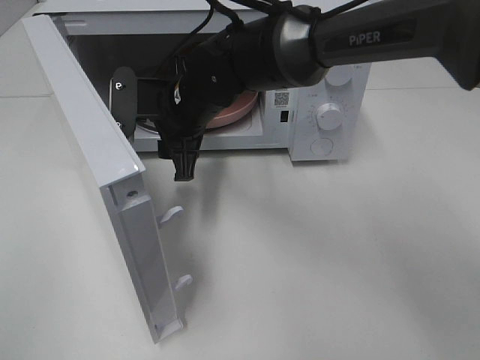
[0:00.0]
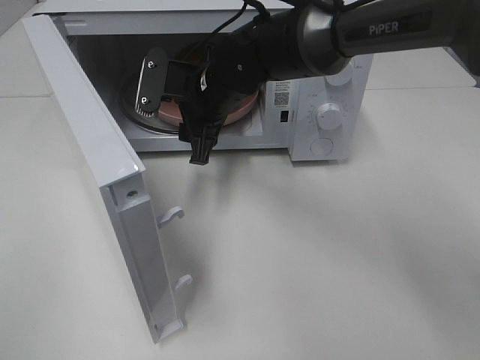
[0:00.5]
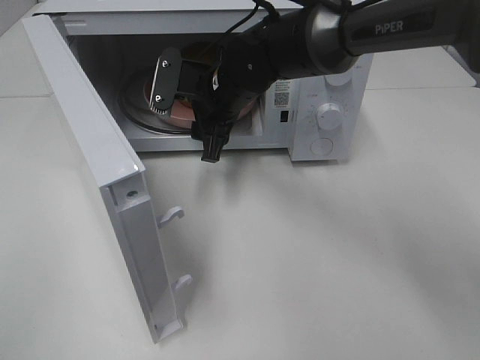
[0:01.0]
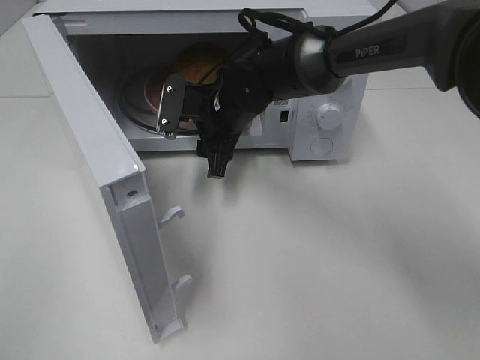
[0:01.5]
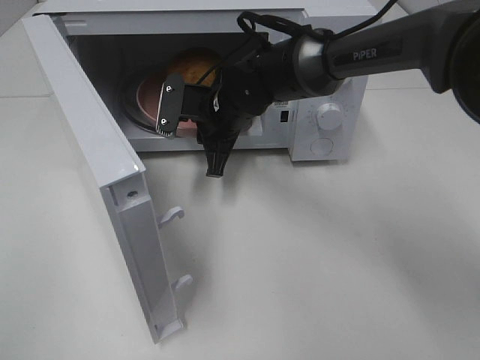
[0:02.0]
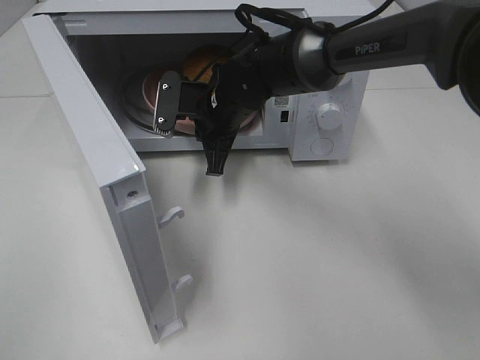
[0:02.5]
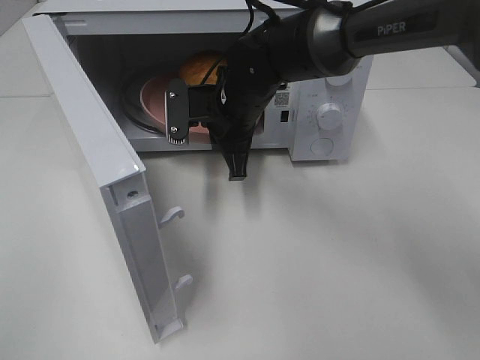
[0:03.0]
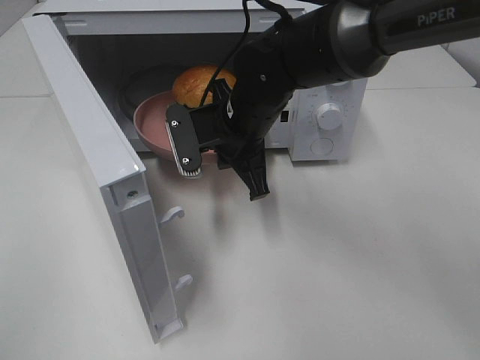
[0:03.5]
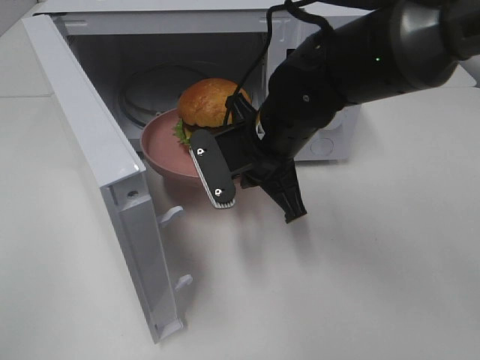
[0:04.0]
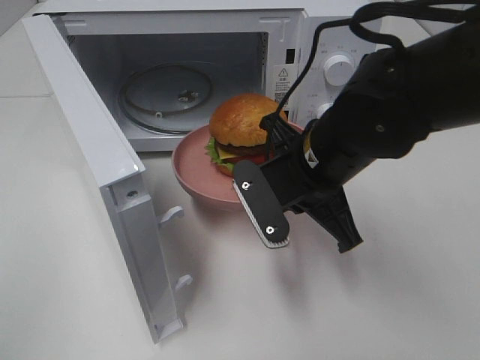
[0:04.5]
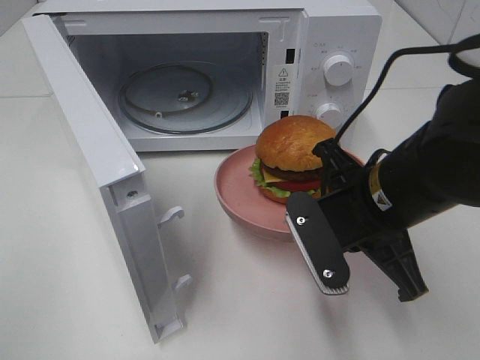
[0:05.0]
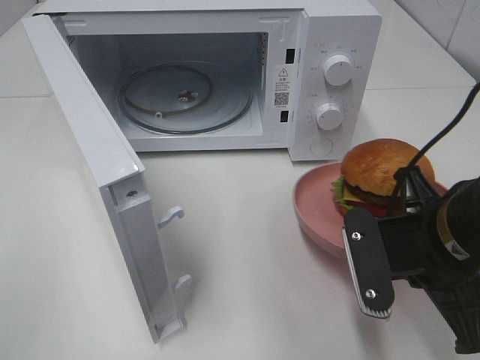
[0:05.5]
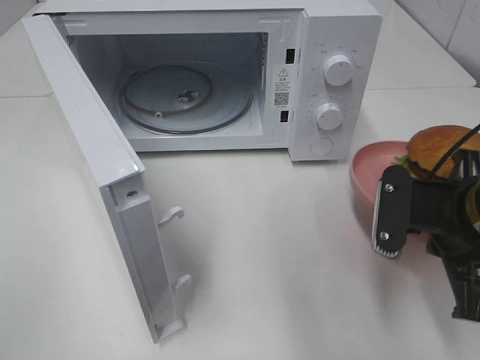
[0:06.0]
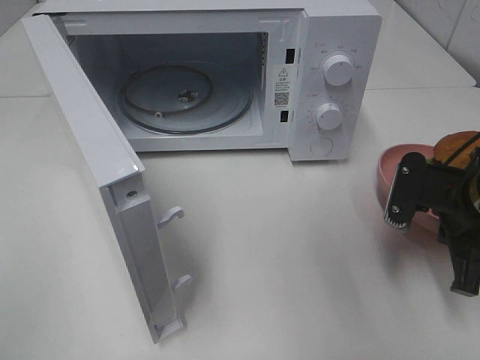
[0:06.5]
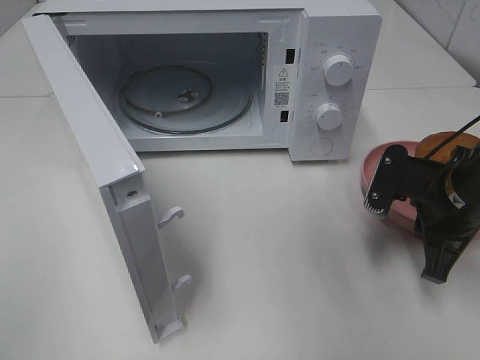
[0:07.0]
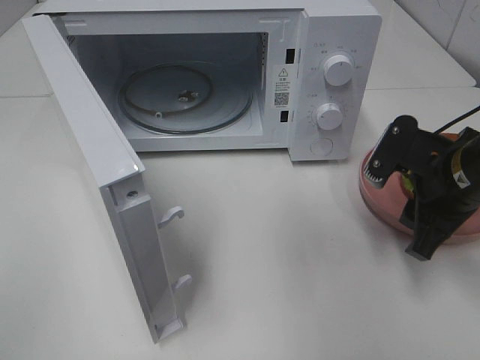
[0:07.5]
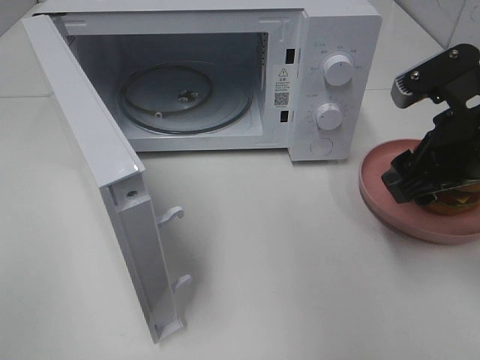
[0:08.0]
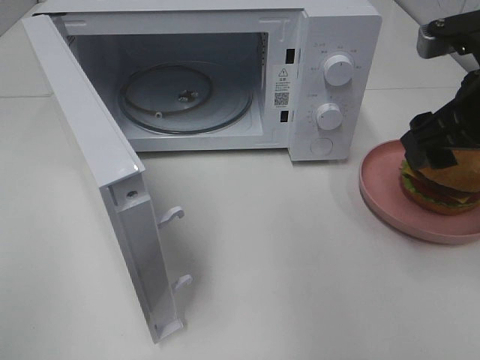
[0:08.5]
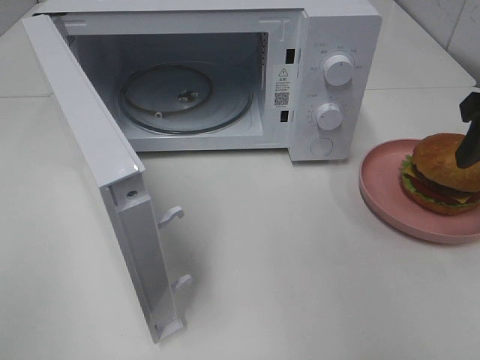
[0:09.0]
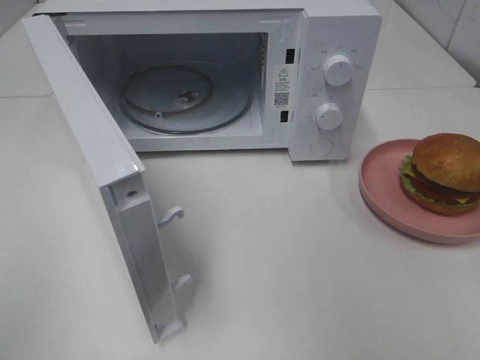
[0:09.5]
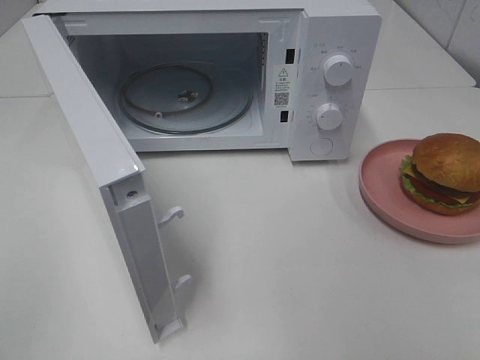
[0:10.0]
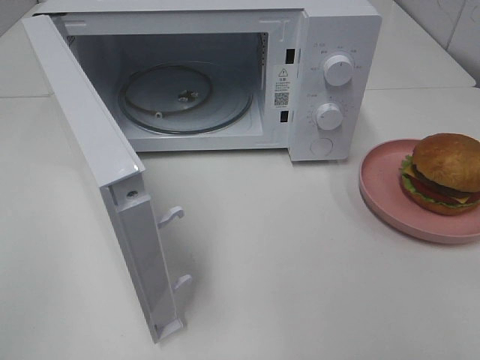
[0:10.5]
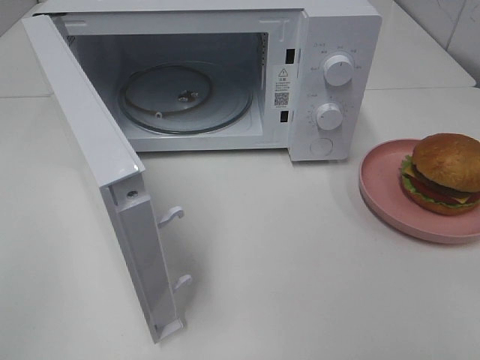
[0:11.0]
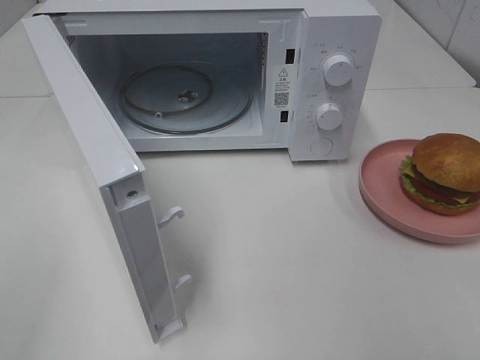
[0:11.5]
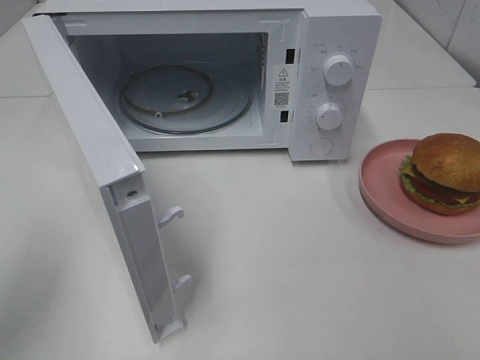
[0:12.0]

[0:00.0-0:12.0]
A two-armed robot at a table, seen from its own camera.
Task of the whole recording: Heat the burger.
Step, 0:02.0 to 0:07.0: Right hand: place the plate on the table.
0:00.0 to 0:02.0: The right gripper moves about 5 cm, and closes its fingers.
0:02.0 to 0:04.0: The right gripper moves backward and to the right, about 10 cm.
0:04.0 to 0:06.0: The right gripper travels to the right and backward by about 20 cm.
0:06.0 to 0:08.0: The right gripper goes some 5 cm upward, and opens.
0:08.0 to 0:10.0: The right gripper heads backward and upward, covering about 20 cm.
0:10.0 to 0:12.0: The left gripper is displaced forward by roughly 15 cm.

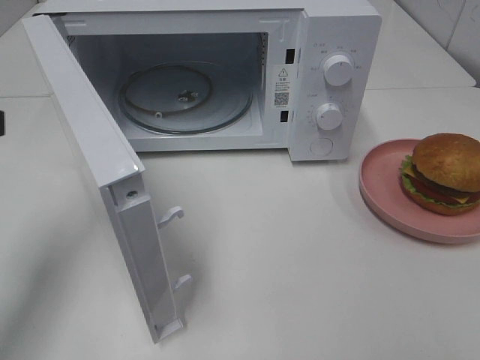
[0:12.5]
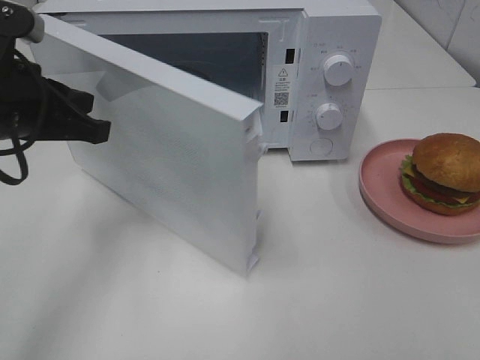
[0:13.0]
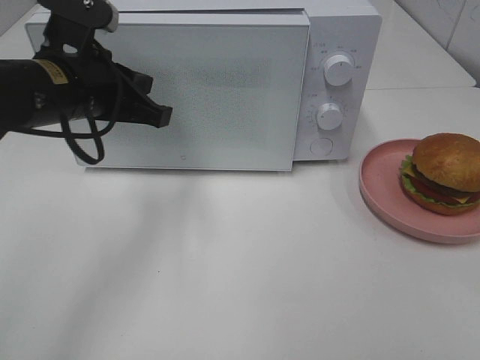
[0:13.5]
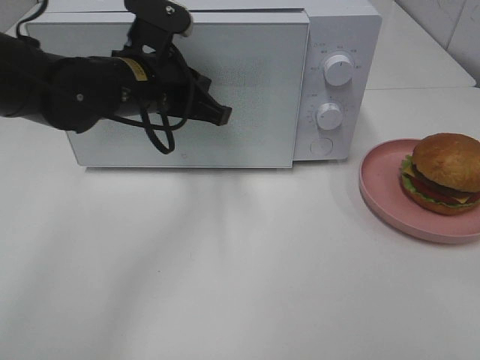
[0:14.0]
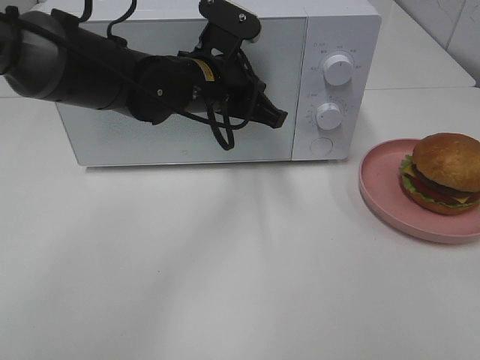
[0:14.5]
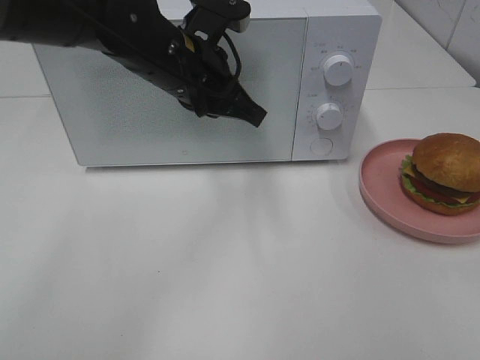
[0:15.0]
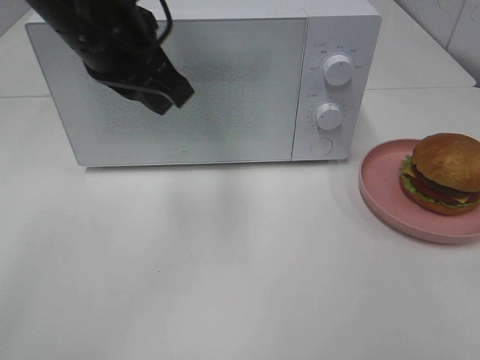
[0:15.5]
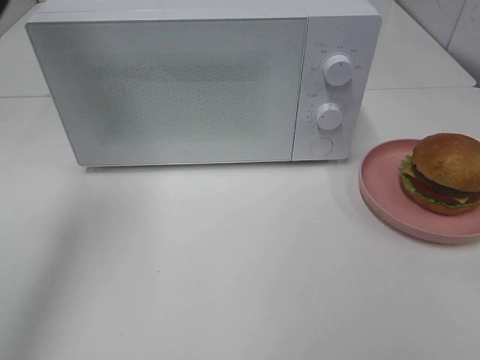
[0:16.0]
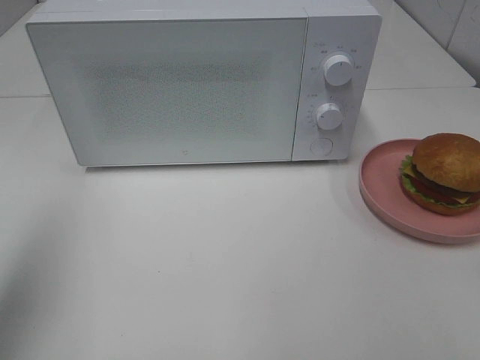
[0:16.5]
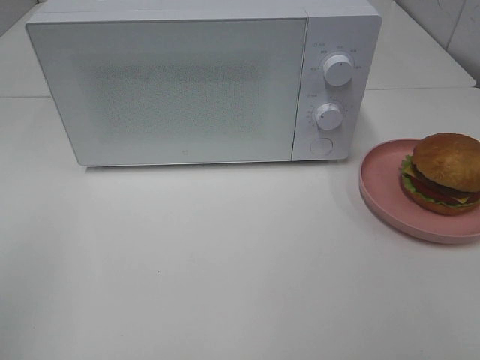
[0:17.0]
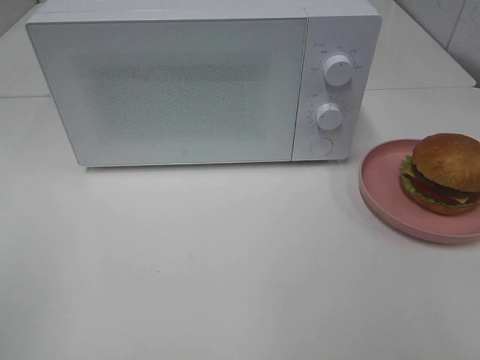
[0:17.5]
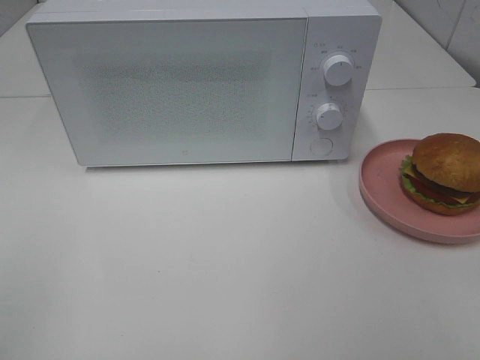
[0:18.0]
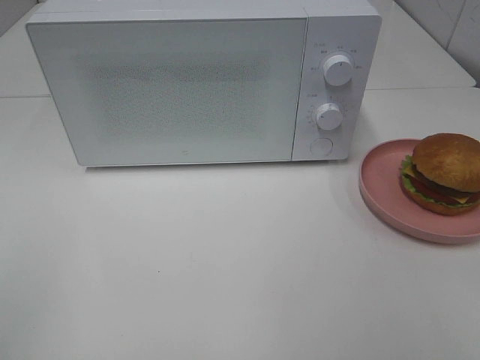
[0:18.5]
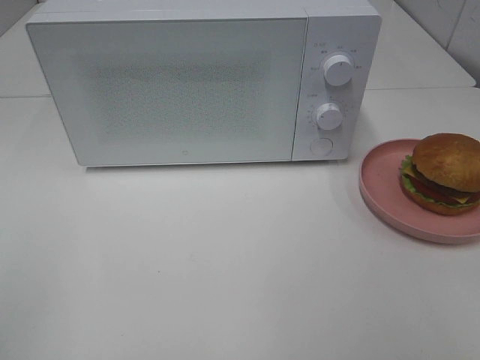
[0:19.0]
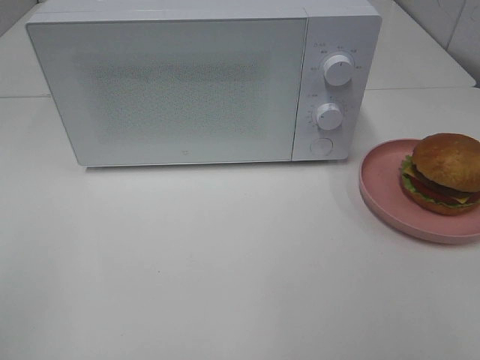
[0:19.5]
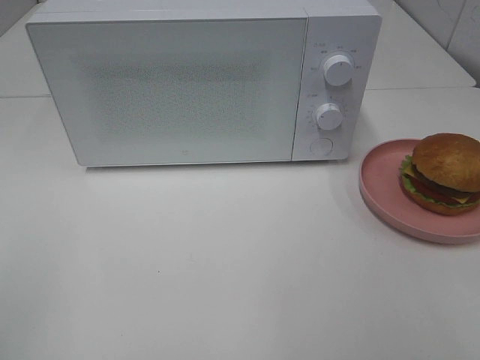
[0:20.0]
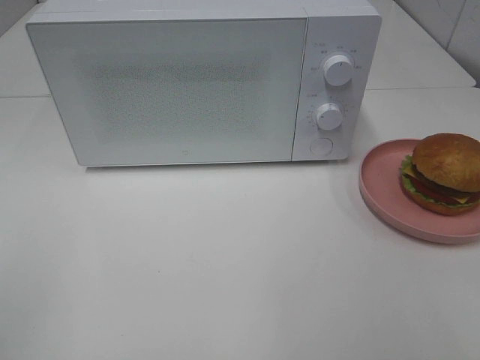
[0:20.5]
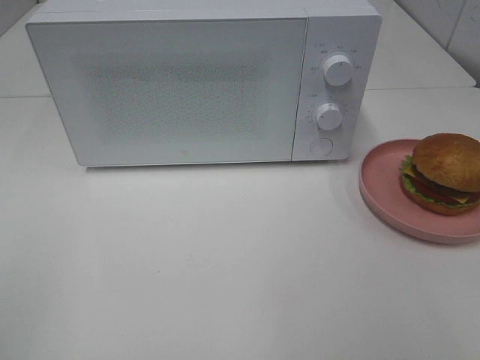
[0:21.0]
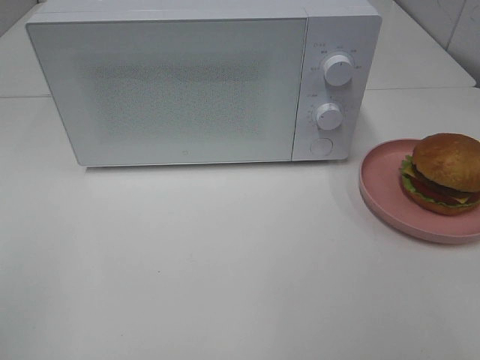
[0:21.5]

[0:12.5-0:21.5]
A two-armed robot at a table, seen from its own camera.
Task of the whole recording: Heat the burger.
Step, 0:12.5 to 0:14.5: Left hand: close the microwave door.
0:12.5 to 0:14.5: The left gripper is displaced to the right and forward by some 25 cm, and opens up.
0:14.5 to 0:17.0: The left gripper heads backward and to the left, covering roughly 40 cm.

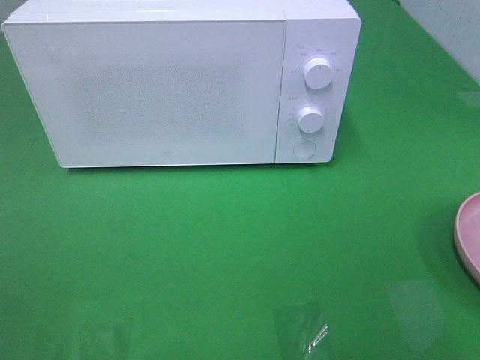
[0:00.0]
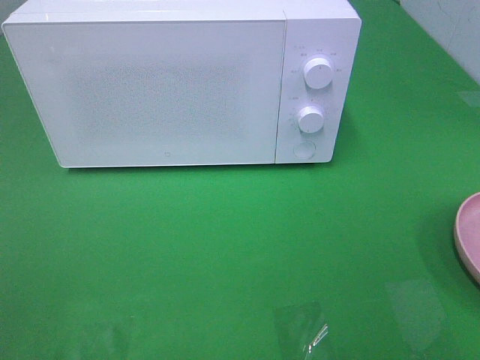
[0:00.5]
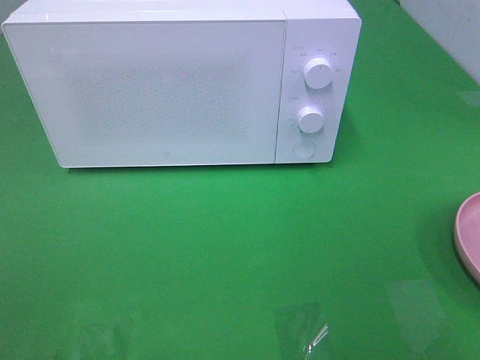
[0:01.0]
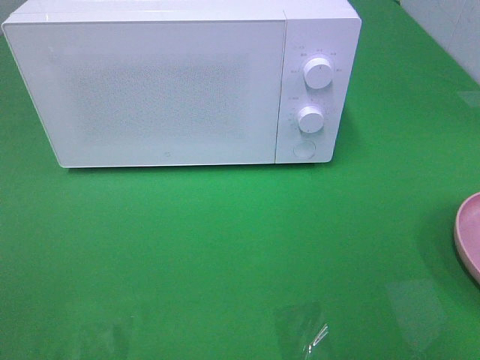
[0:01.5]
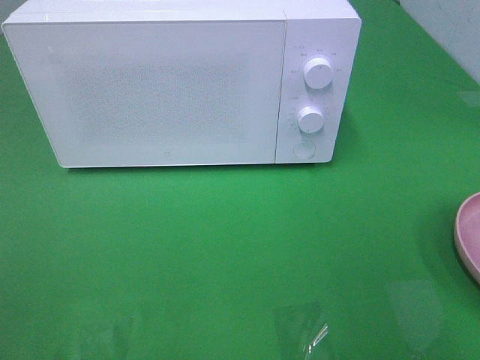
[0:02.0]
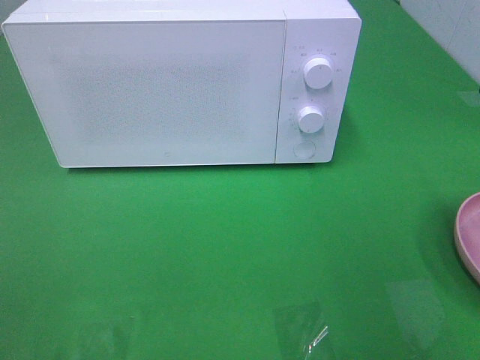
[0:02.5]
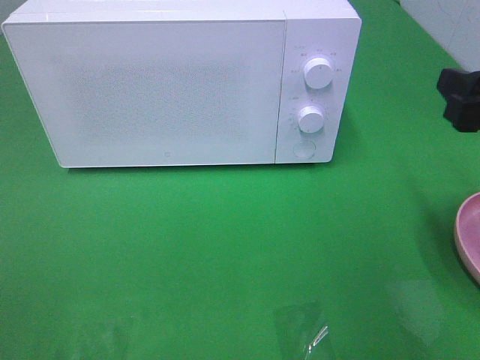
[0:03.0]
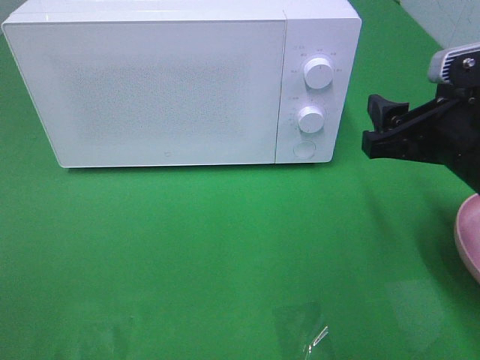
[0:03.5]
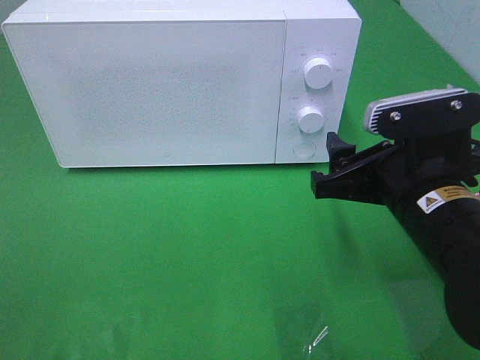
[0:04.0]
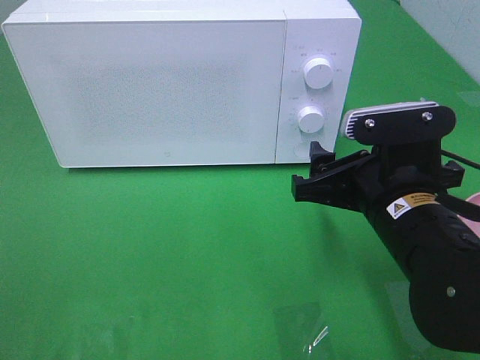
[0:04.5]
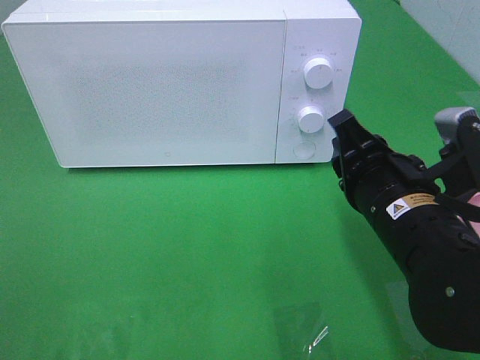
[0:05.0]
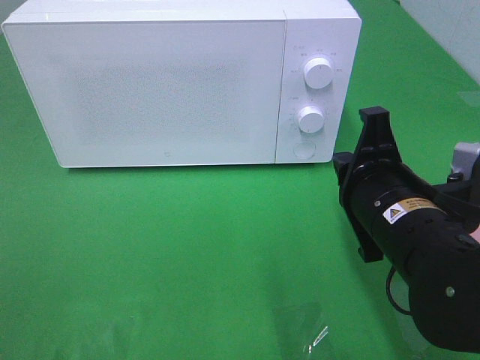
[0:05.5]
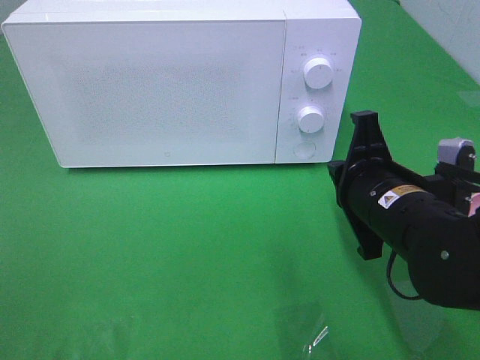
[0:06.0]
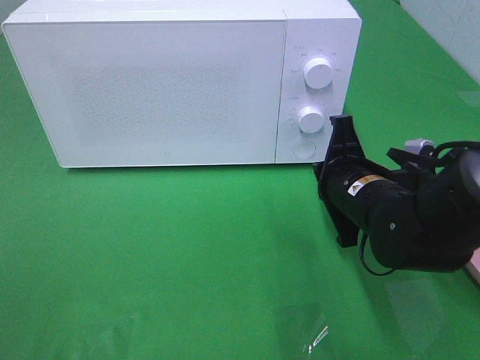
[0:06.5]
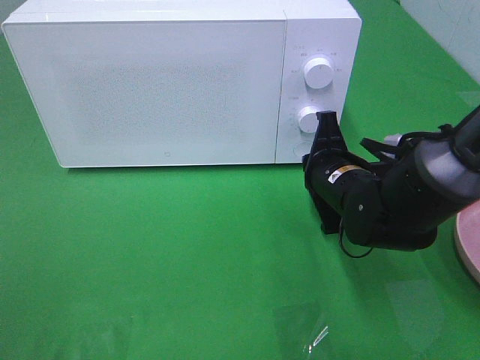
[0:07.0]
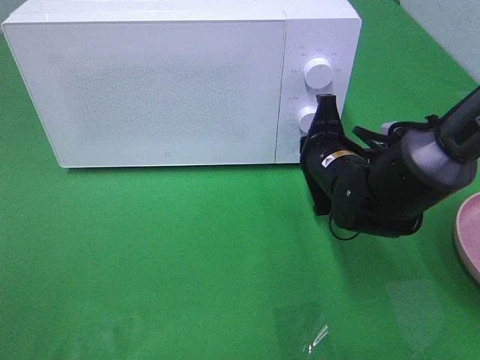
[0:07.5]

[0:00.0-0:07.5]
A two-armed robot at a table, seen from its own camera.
Task of the whole recording: Heat the burger.
0:02.0 to 0:04.0: The right gripper shifts some 20 cm to the left, downward and forward.
0:04.0 to 0:05.5: The right gripper closes its fingers.
0:05.5 to 0:07.5: The right gripper goes about 15 cm forward and downward.
